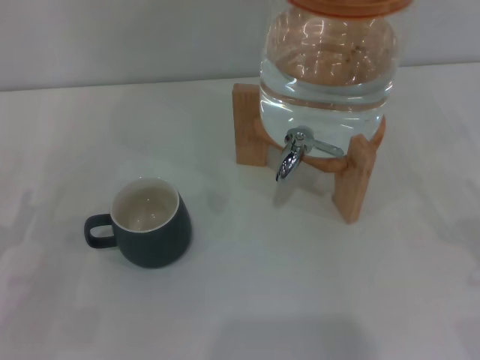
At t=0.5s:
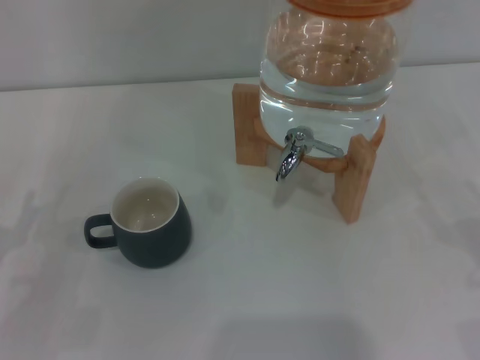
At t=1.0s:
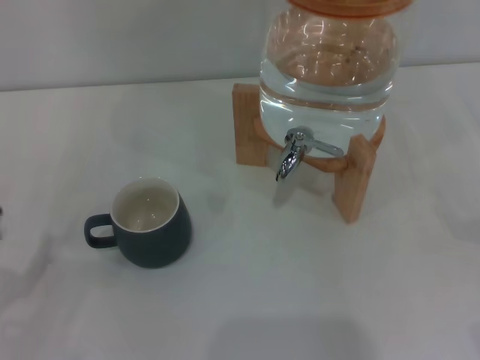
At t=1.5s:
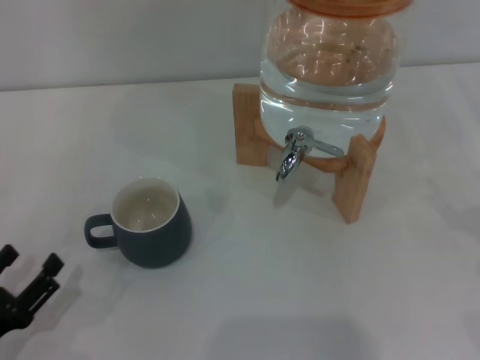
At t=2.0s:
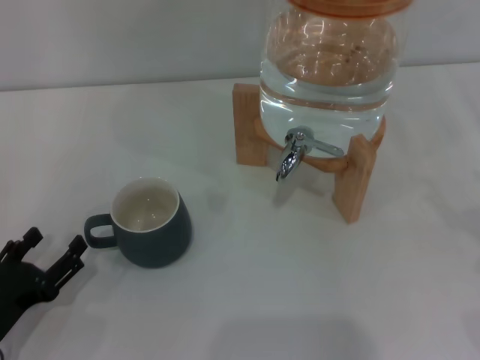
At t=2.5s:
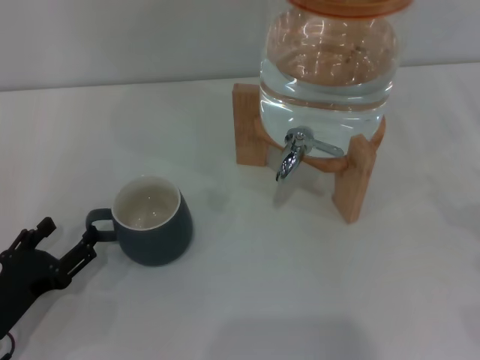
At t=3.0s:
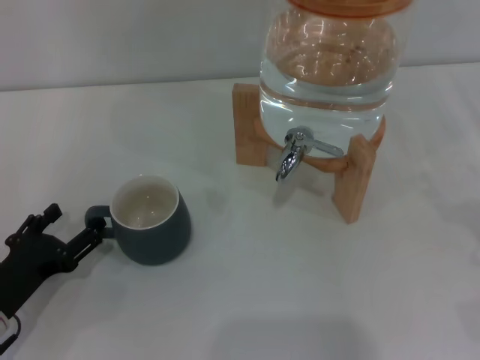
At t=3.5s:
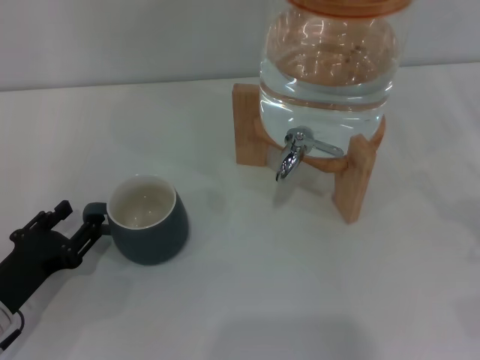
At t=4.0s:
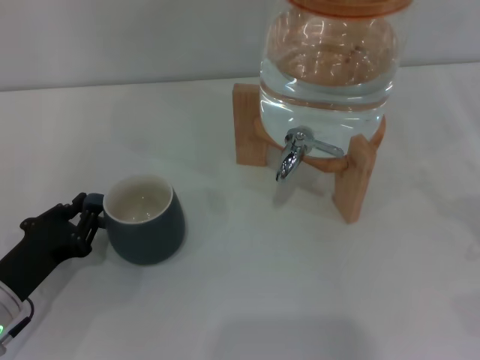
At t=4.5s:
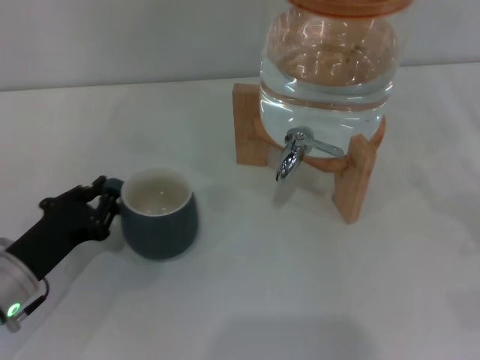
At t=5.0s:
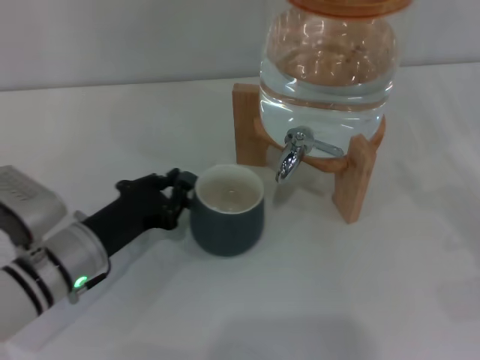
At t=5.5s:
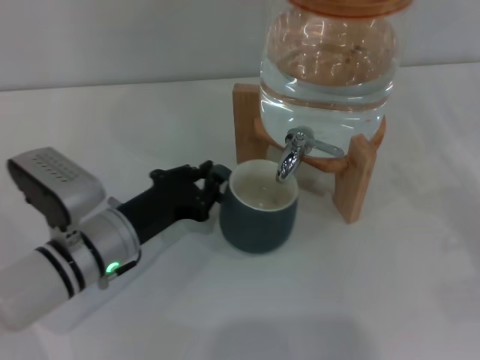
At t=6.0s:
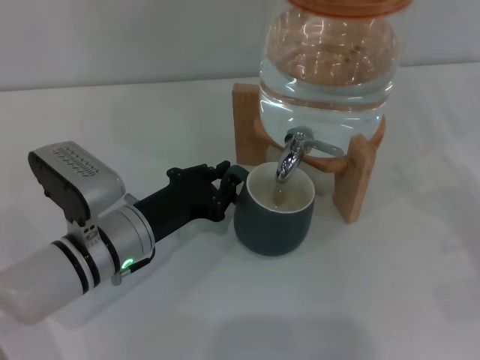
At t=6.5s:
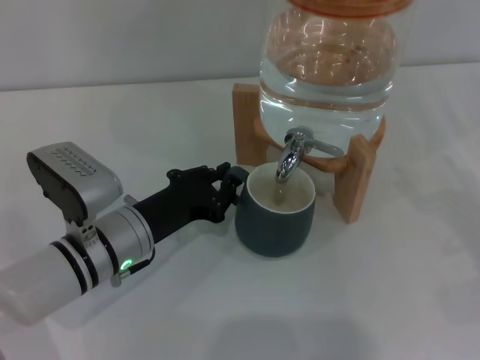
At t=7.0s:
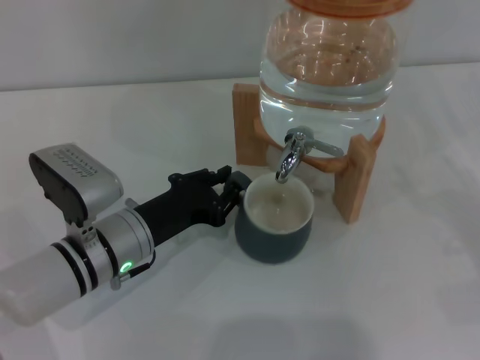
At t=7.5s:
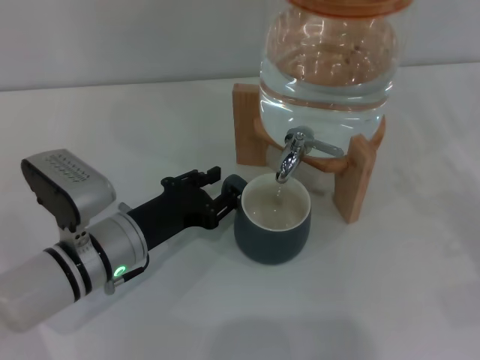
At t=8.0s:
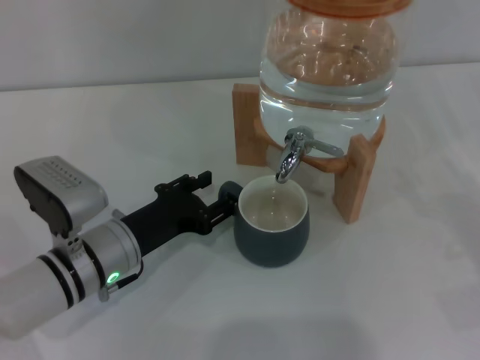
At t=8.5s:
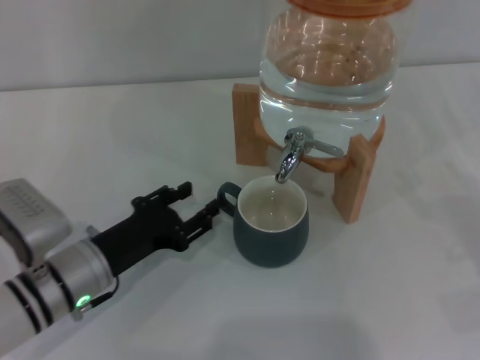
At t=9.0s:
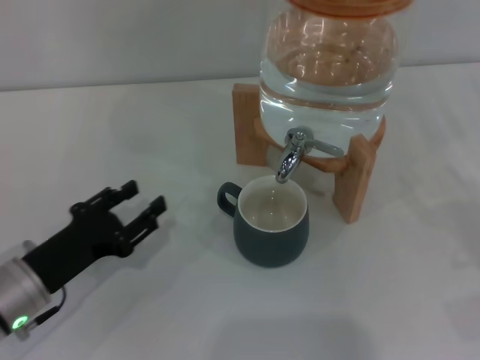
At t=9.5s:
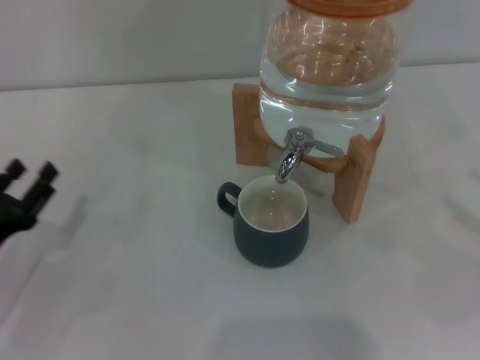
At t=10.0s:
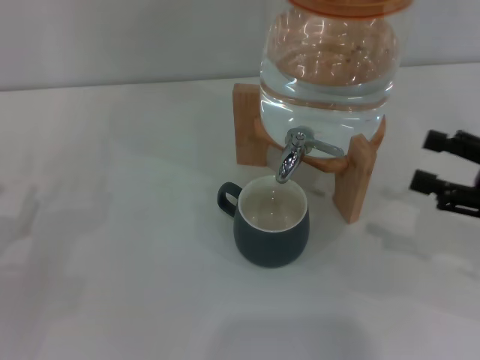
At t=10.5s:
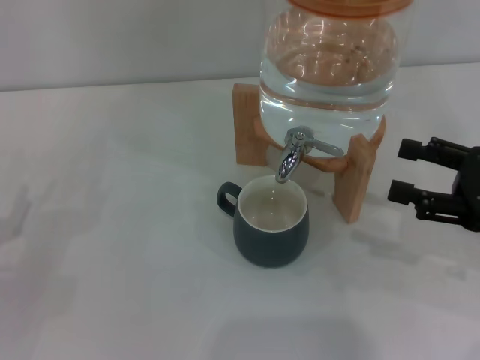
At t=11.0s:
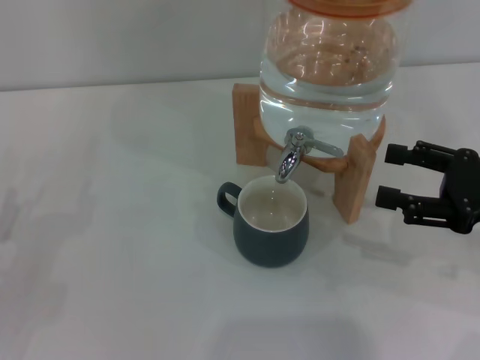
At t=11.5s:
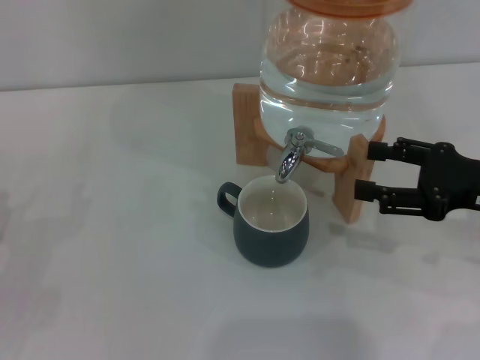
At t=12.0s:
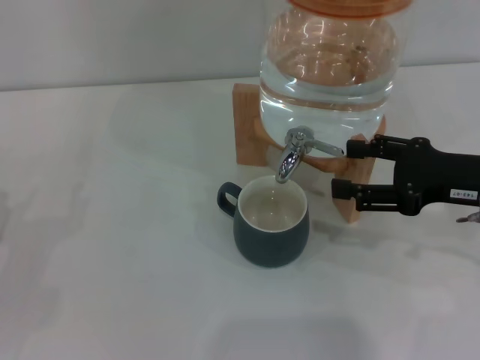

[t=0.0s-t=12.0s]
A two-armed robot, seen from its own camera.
Task of the whole recording: the left gripper pick up the black cup and place it horizontally under the faucet, the right gripper turn on the faucet to fill the cup, and then turn off the faucet.
Step, t=0.0s to t=8.0s: Move the cup beneath the water dispenser nozzle with the left gripper.
t=0.0s to t=2.0s: The left gripper changes place by roughly 5 cm.
t=2.0s to t=4.0s: The left gripper is displaced forward by approximately 5 cm, and closes.
t=4.0s to t=6.0s: The left gripper travels to the right and forward by roughly 15 cm.
t=6.0s to t=8.0s: The left gripper opens.
t=8.0s to t=10.0s: The left gripper travels to the left by approximately 15 cm. Meanwhile the right gripper is displaced upward and to the left by some 10 cm.
t=10.0s to t=12.0s: The right gripper moves to the left, roughly 5 cm.

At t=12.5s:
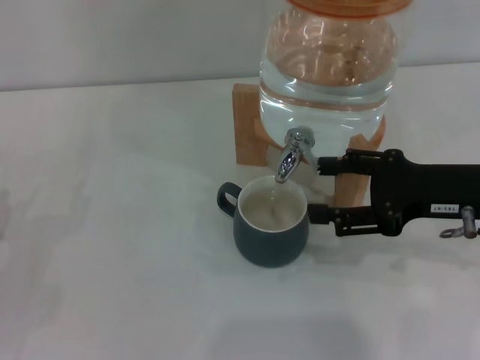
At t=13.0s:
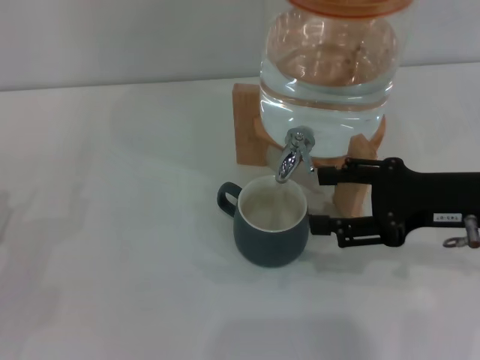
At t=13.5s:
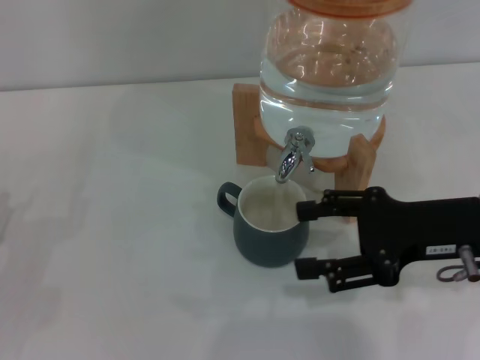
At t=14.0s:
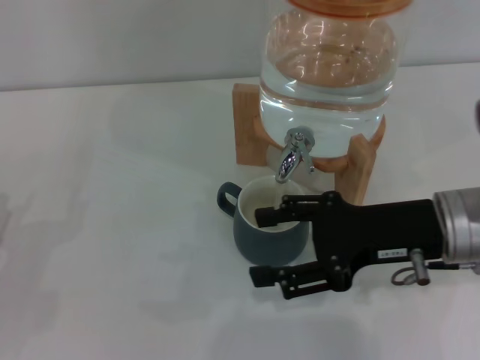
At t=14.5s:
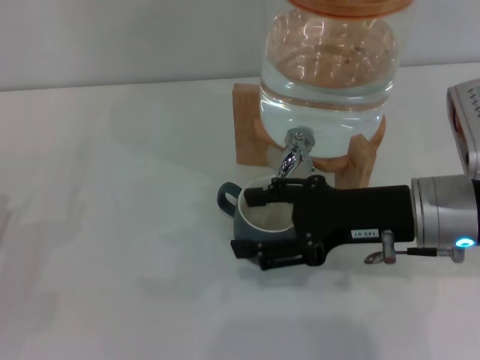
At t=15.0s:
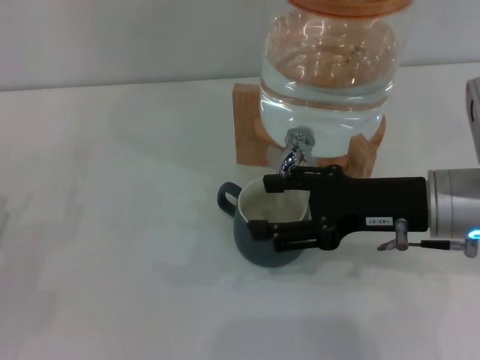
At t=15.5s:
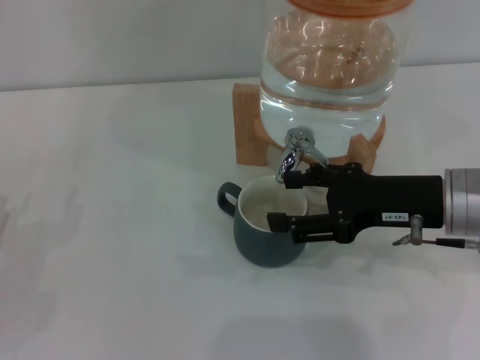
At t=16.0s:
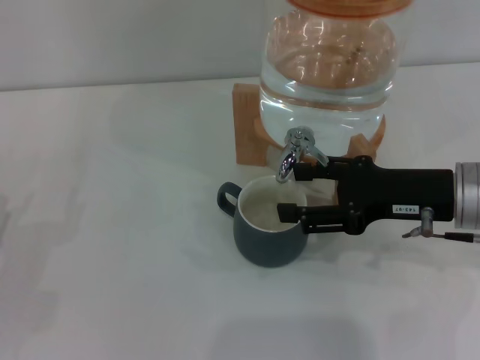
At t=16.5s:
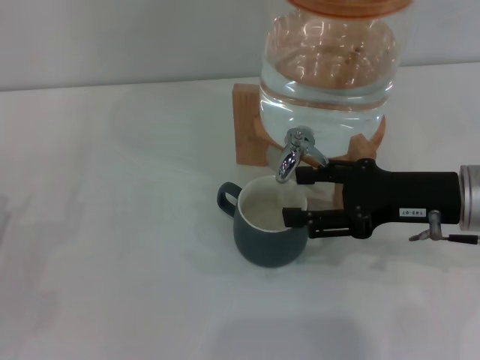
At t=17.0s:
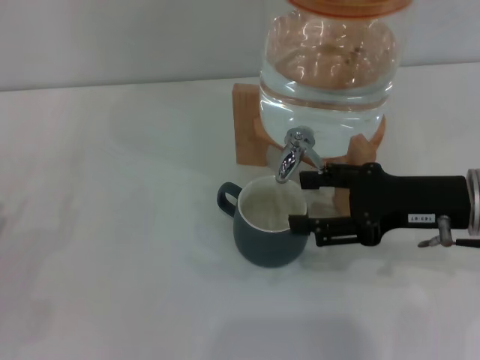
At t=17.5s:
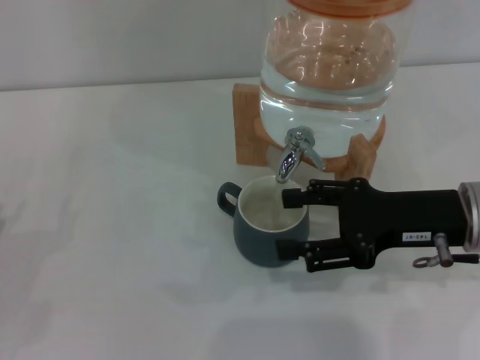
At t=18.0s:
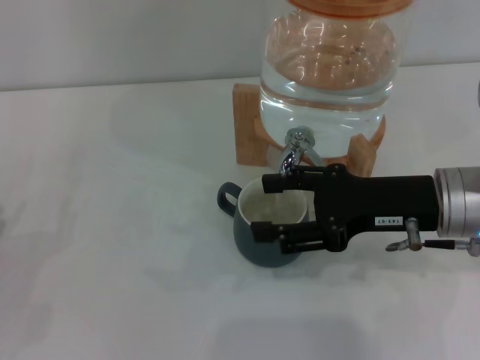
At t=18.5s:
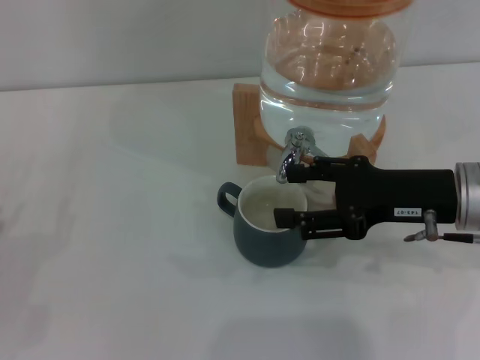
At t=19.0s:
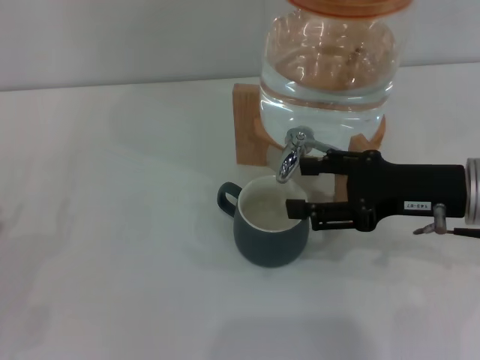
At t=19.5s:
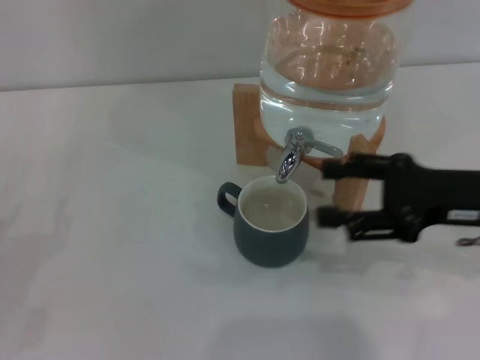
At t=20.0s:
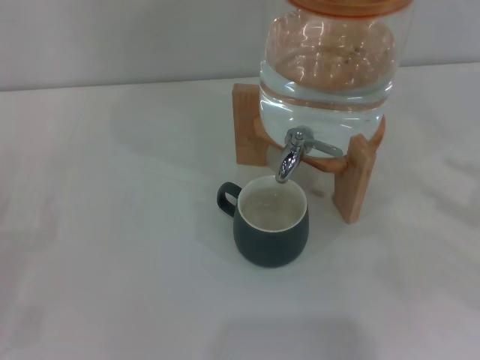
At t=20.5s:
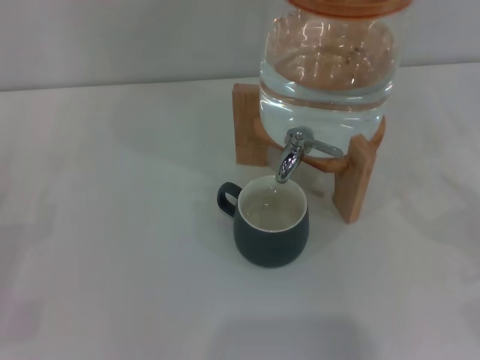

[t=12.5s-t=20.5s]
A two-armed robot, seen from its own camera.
Task of the whole recording: the left gripper pick up the black cup and place it horizontally under the faucet, the right gripper turn on the faucet to fill the cup, and then turn off the faucet.
Step, t=13.5s to t=19.5s: Close the dispenser valve with the right gripper.
t=12.5s to t=14.5s: The right gripper moves to the left, roughly 5 cm.
t=14.5s to t=16.5s: The right gripper moves approximately 5 cm.
t=16.5s to t=18.5s: There are only small adjustments of the grippers.
t=18.5s to t=20.5s: The right gripper goes roughly 25 cm to the right and backward.
